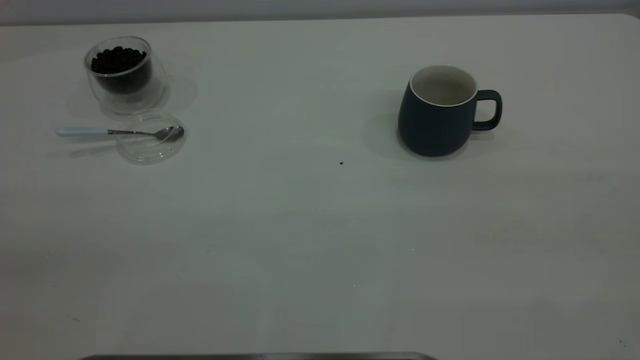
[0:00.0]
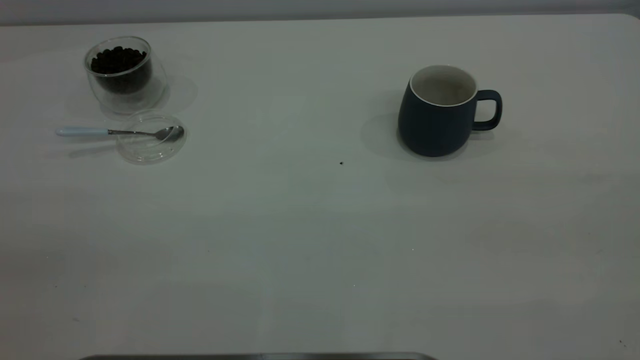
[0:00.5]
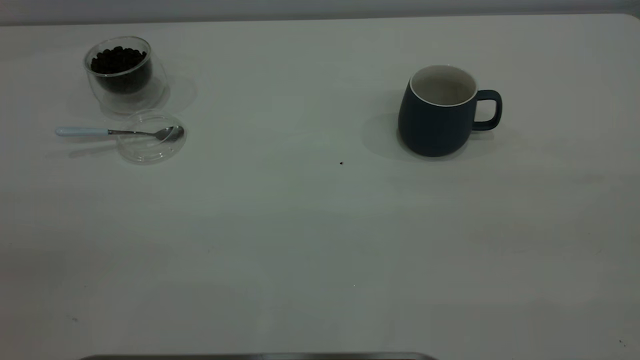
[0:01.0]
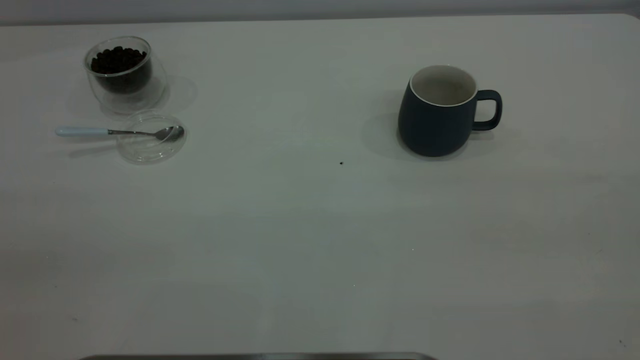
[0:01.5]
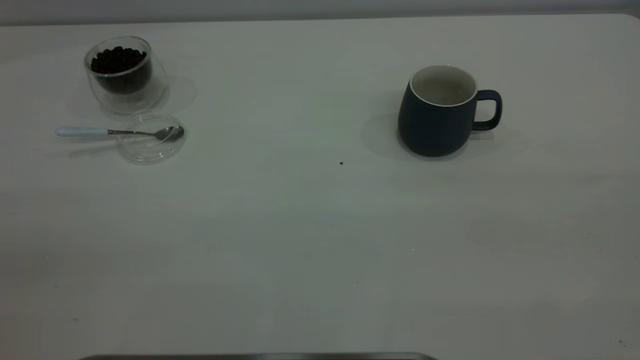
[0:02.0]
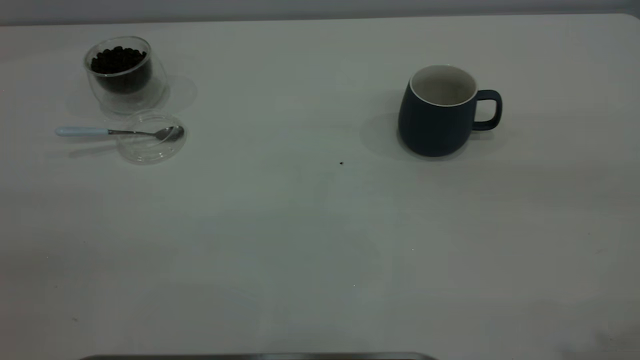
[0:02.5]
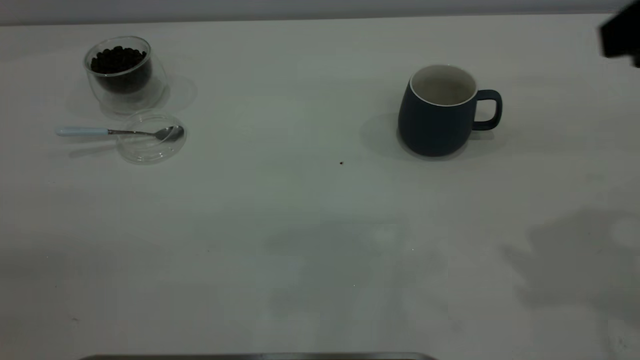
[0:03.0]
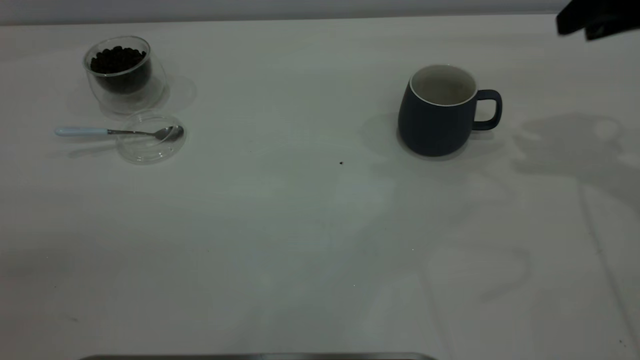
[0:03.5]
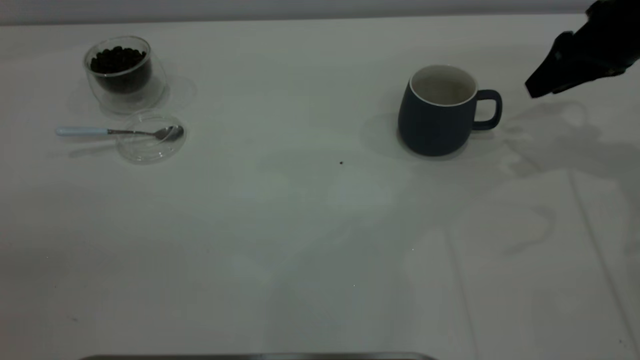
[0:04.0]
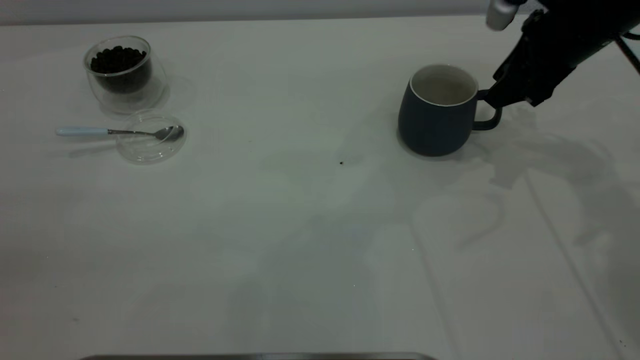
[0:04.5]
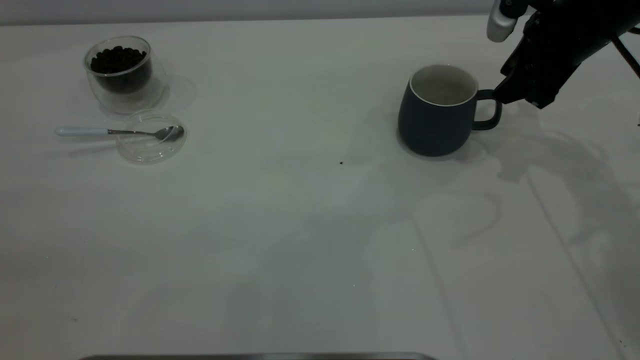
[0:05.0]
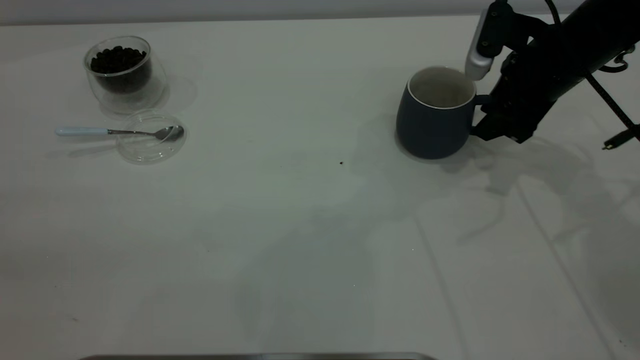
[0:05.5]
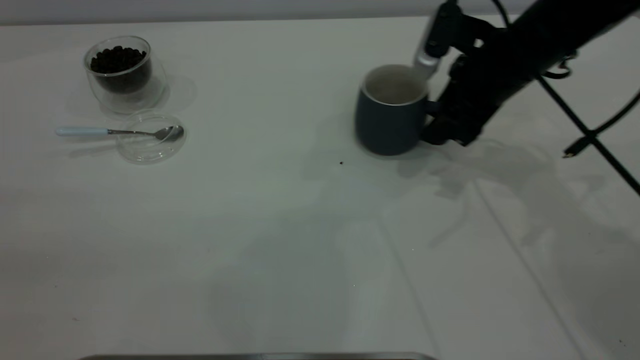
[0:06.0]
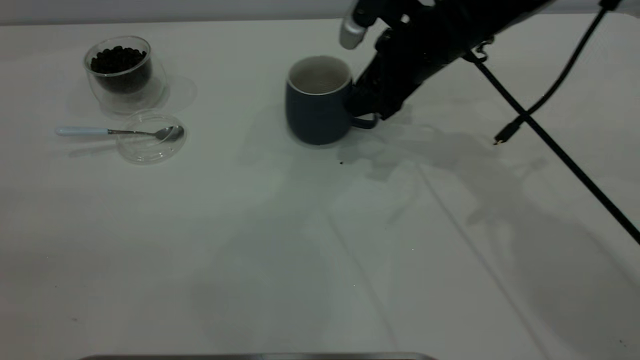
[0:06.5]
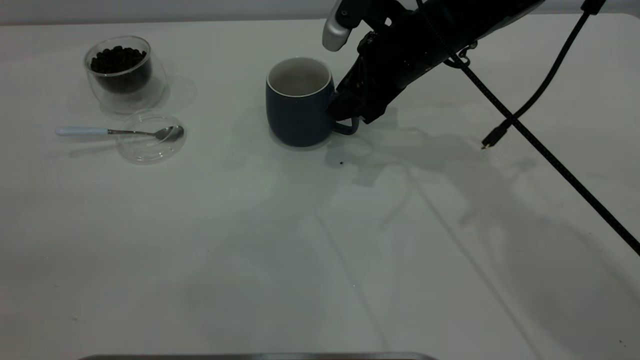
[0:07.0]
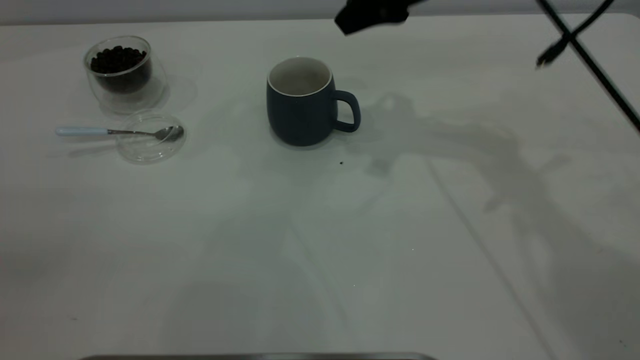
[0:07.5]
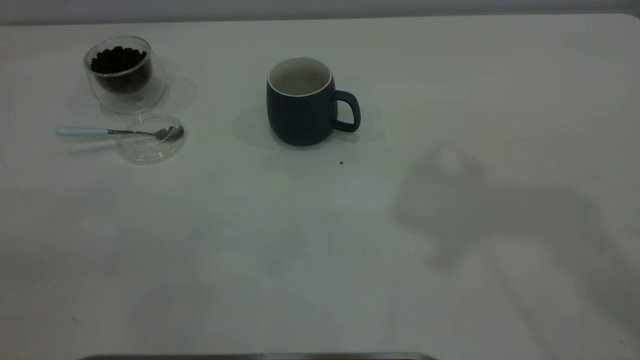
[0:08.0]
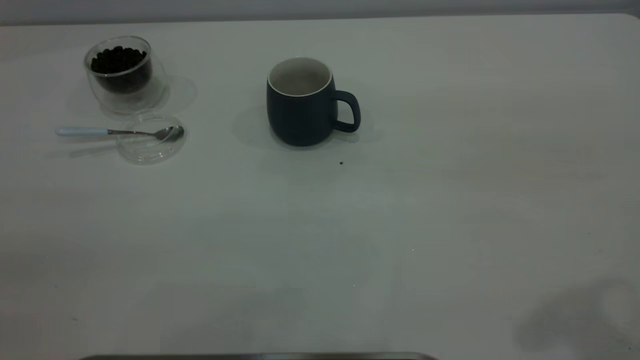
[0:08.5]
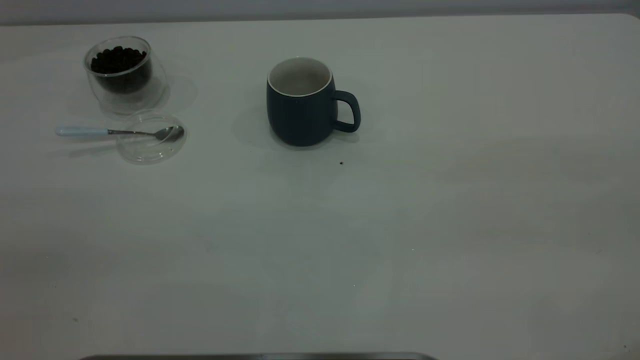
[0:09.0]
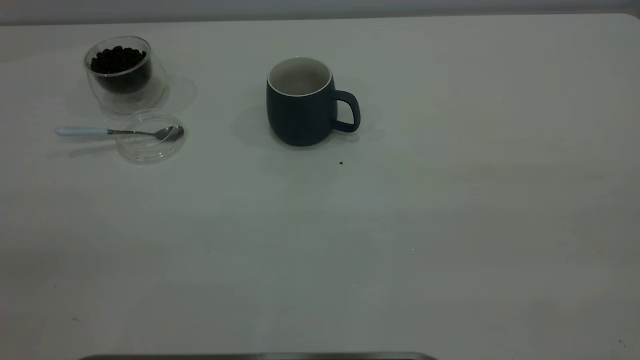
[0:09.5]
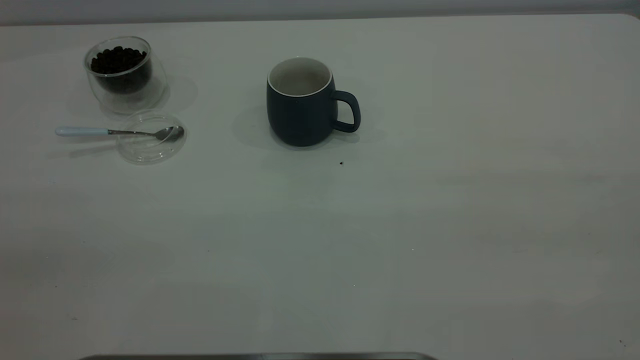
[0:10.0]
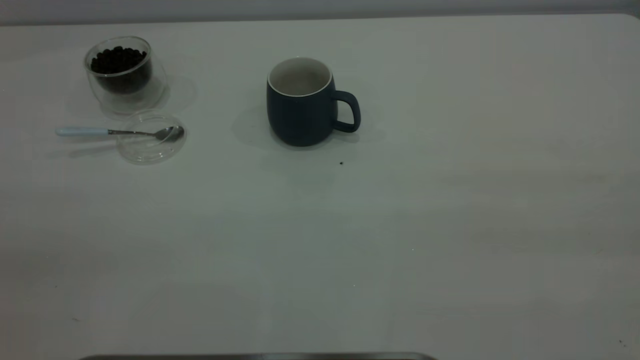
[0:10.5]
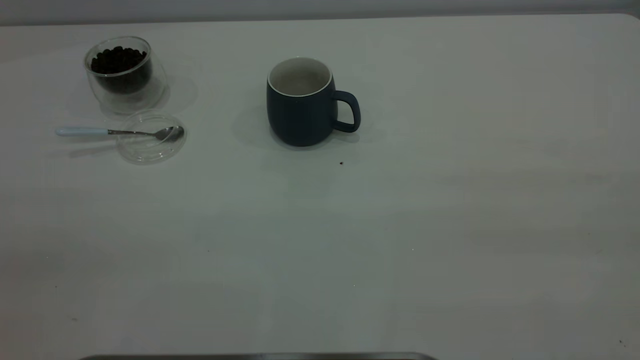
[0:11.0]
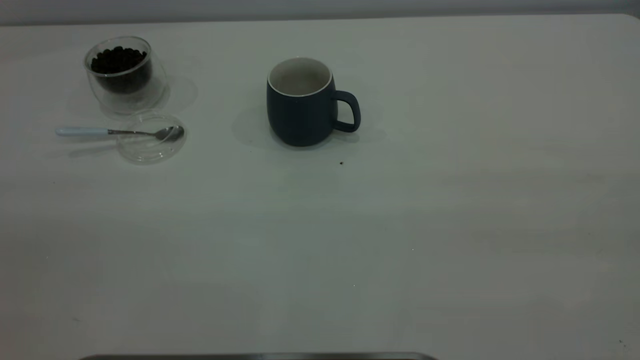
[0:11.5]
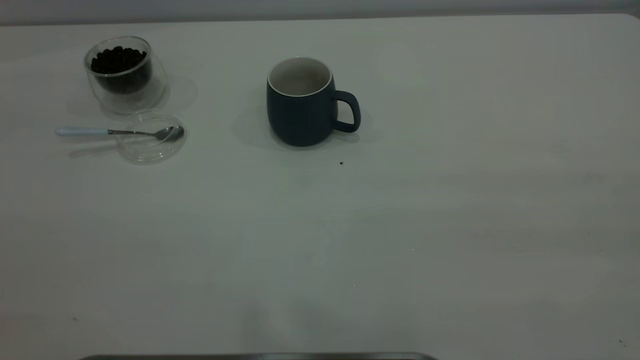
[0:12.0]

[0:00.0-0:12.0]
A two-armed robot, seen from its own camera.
Task of the whole recording: the right gripper place the grey cup in the center of the table, the left gripper take the blue spoon from the cup lid and scoop out the coffee beans from the coffee cup and put them into the grey cup, the left gripper put the spoon back into the cup lid.
Step, 0:00.0 to 0:07.0: Move the cup to the center of view.
0:02.0 to 0:04.0: The right gripper is displaced forward and downward by about 50 cm.
0:04.0 to 0:06.0: The right gripper heads to the left, covering approximately 10 cm.
0:06.0 to 0:08.0: The right gripper goes some 35 cm upward.

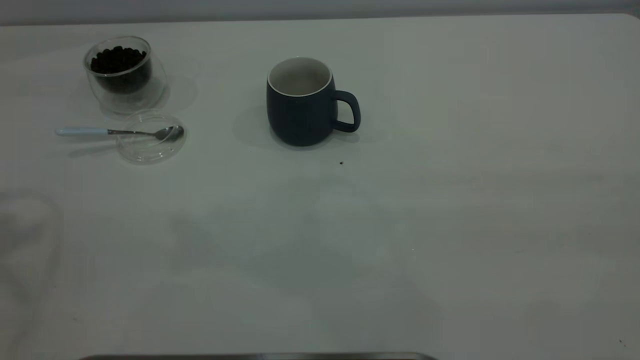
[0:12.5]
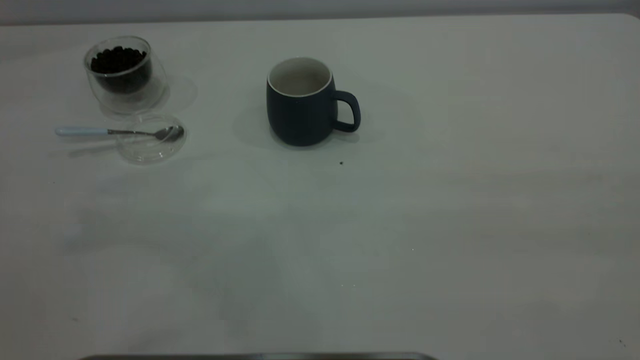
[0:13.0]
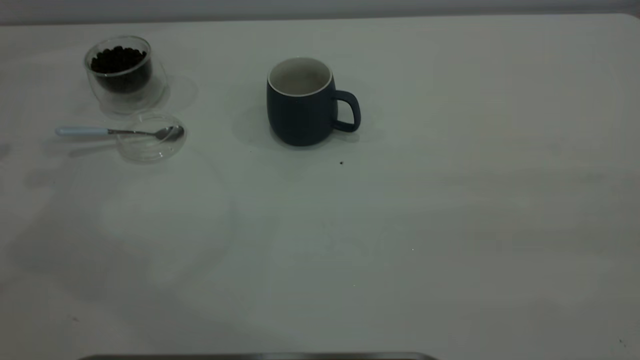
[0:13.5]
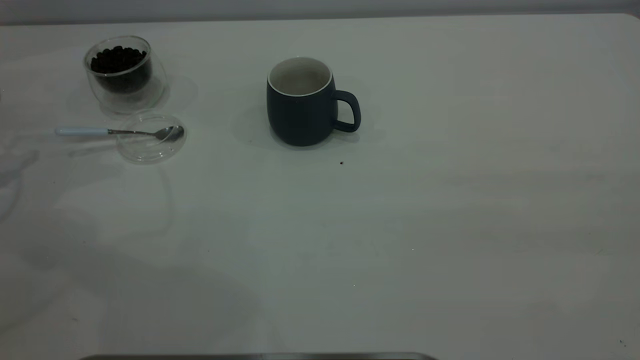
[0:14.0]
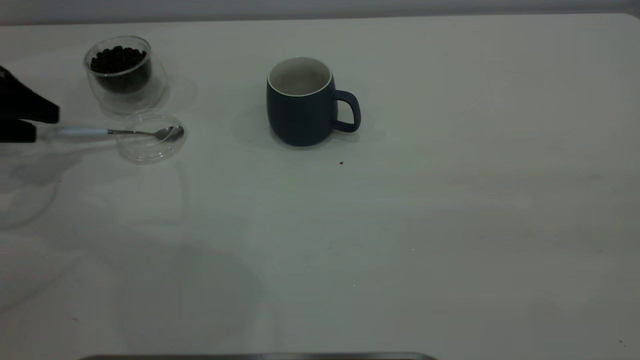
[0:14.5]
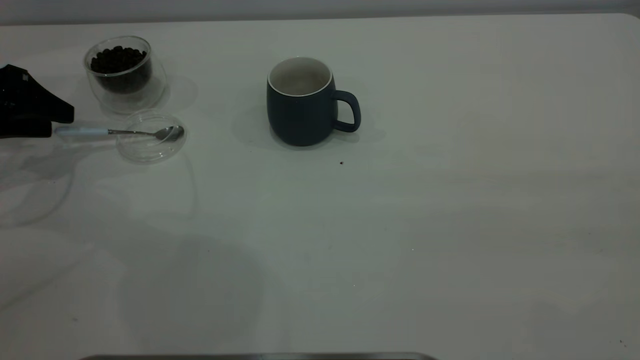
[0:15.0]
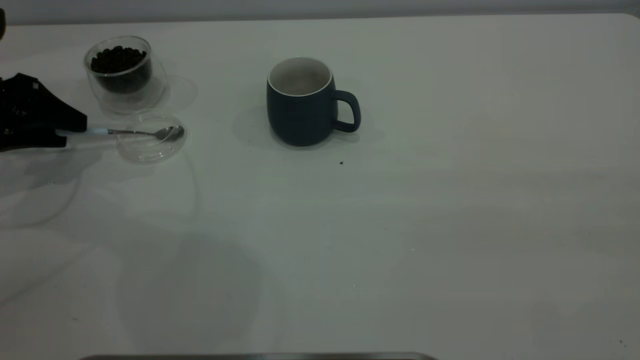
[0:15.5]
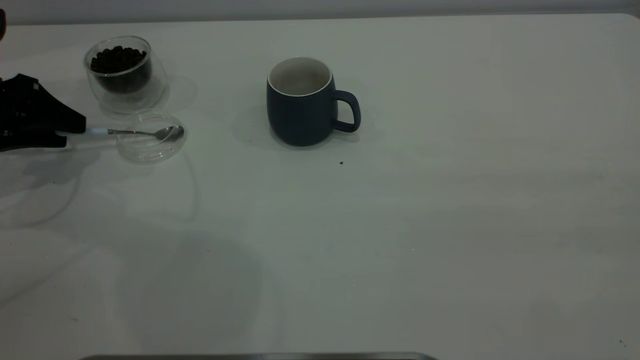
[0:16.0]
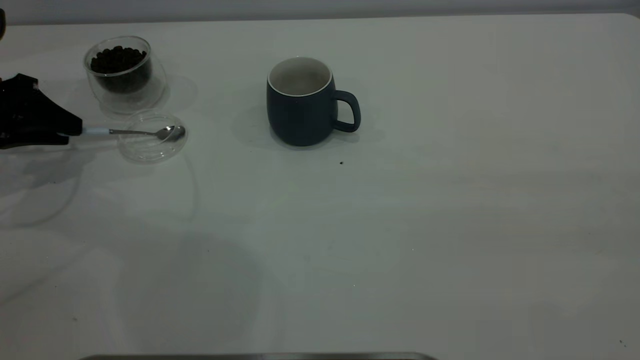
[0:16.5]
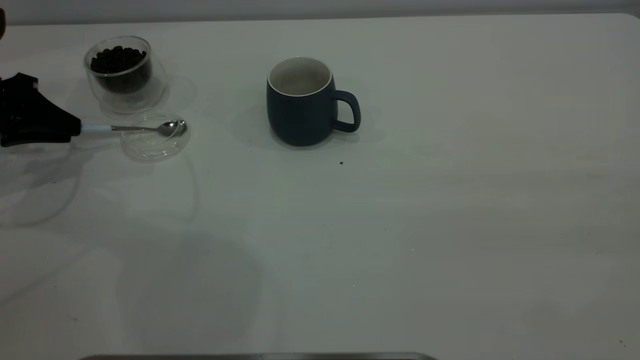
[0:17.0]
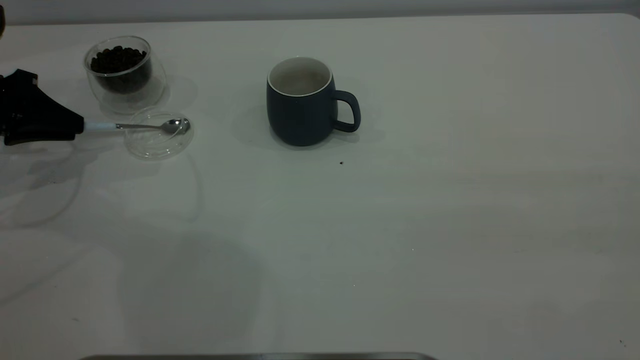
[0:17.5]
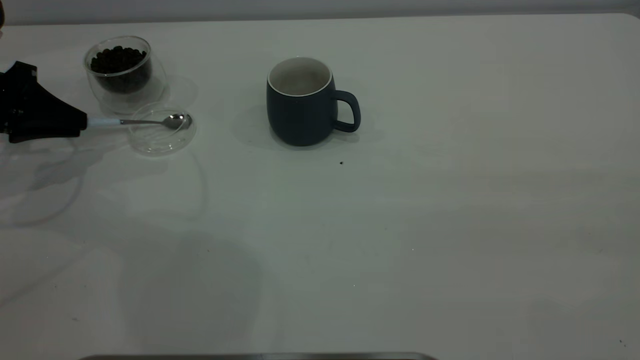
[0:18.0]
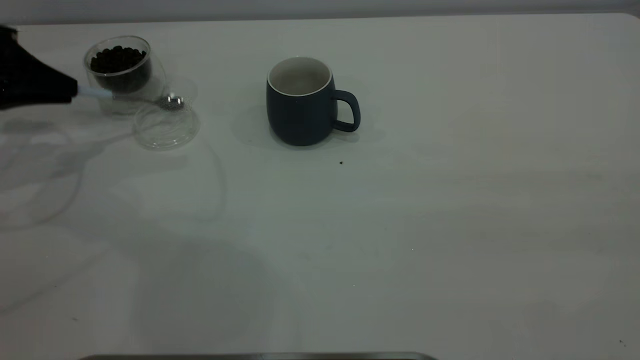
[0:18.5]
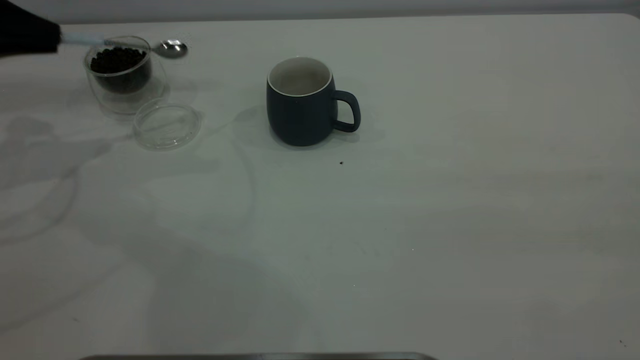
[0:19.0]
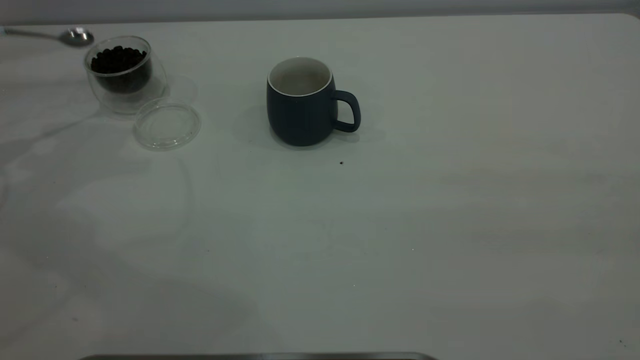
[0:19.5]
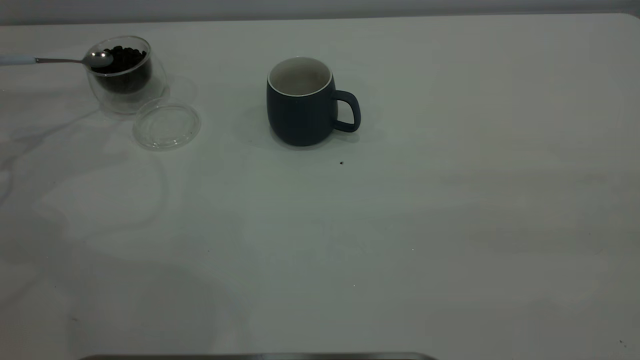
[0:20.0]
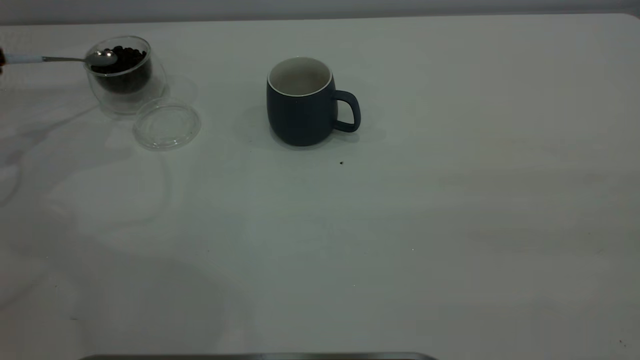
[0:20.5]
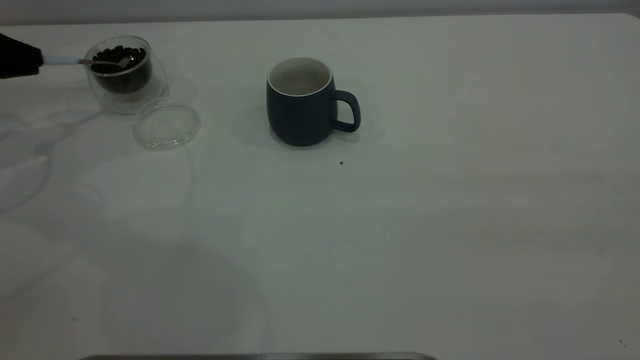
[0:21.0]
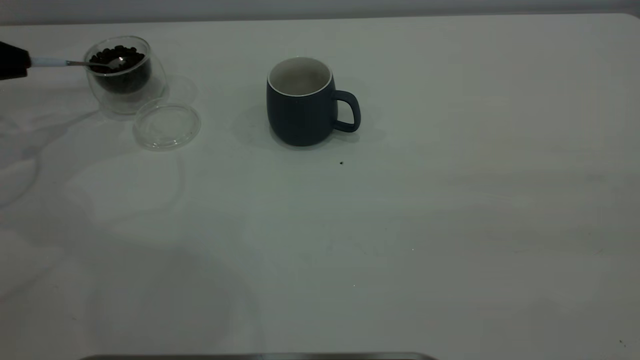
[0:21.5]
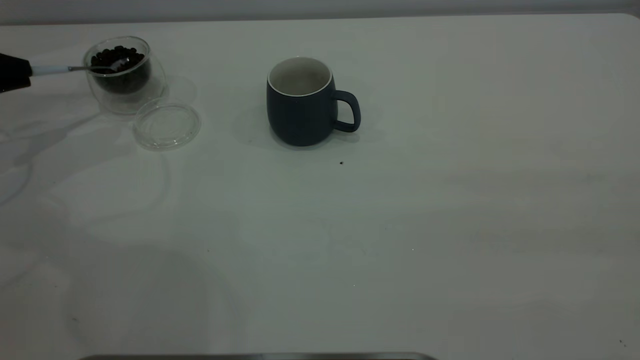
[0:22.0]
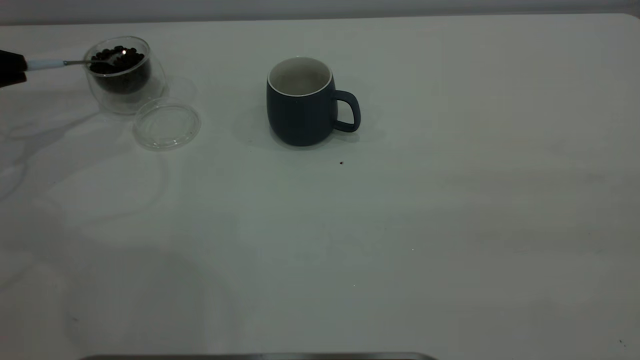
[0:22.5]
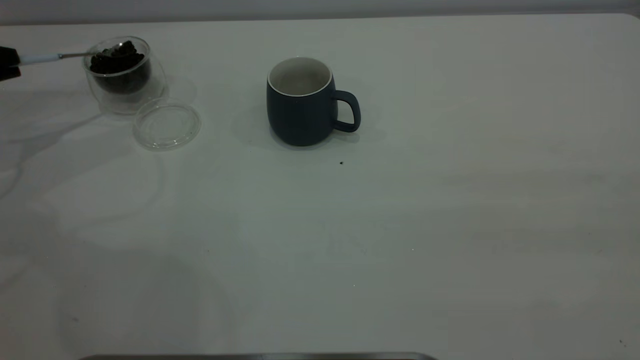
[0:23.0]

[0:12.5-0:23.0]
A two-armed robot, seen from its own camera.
Task of the whole recording: the right gripper place the grey cup in the center of the table, the left gripper take the blue spoon from the cup lid and scoop out the coffee beans from the coffee cup and put them into the grey cup, the left gripper put the spoon back into the cup lid.
Step, 0:12.5 to 0:18.5: Pick up the spoon.
0:12.5 to 0:14.5: The left gripper heads downward, covering approximately 30 cm.
0:14.5 to 0:16.5: The left gripper closes its fingers.
0:16.5 to 0:19.0: The left gripper is displaced upward by roughly 10 cm, and closes its fingers.
0:19.0 to 0:21.0: The left gripper is displaced downward by about 5 cm.
